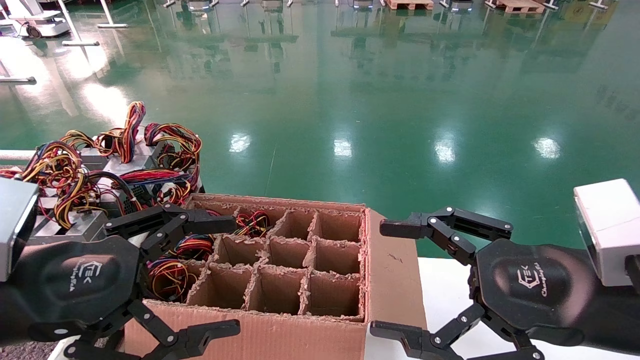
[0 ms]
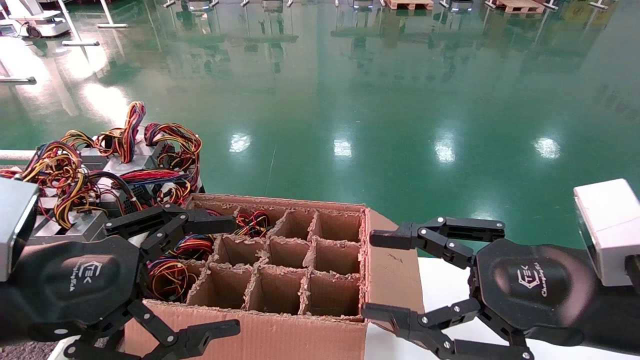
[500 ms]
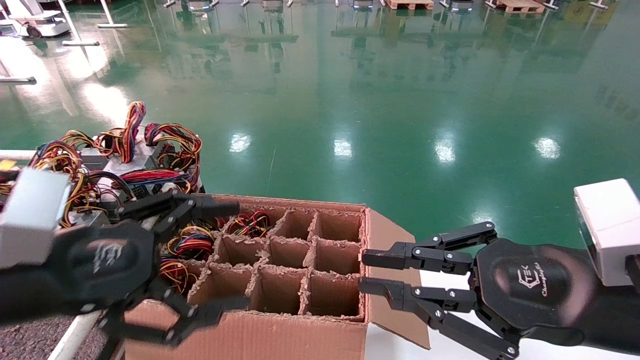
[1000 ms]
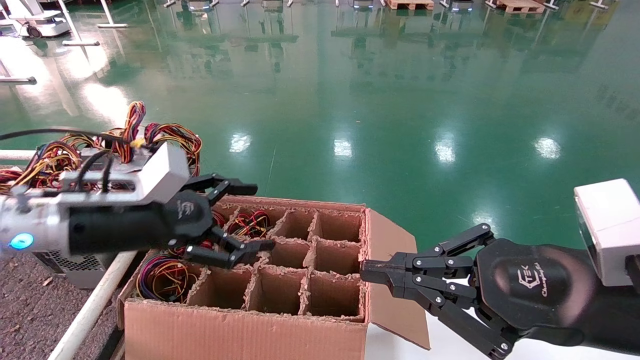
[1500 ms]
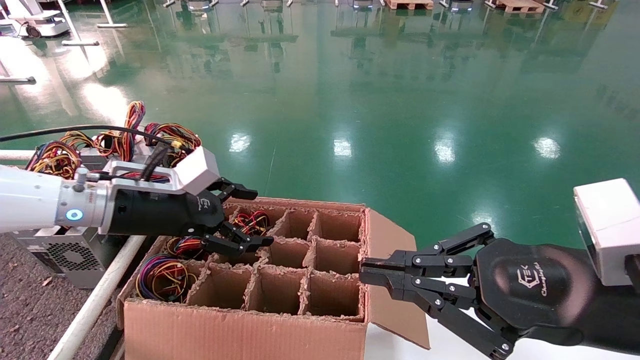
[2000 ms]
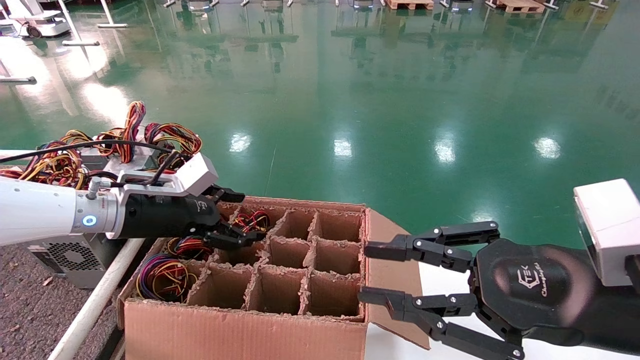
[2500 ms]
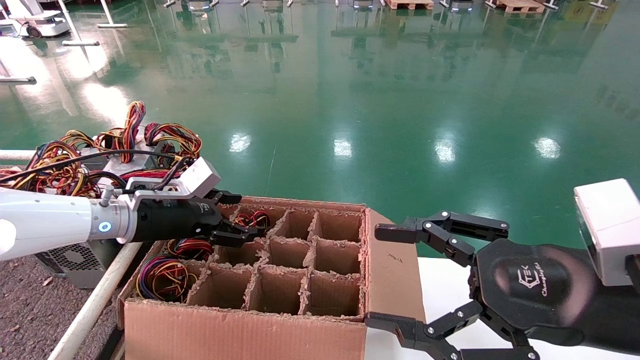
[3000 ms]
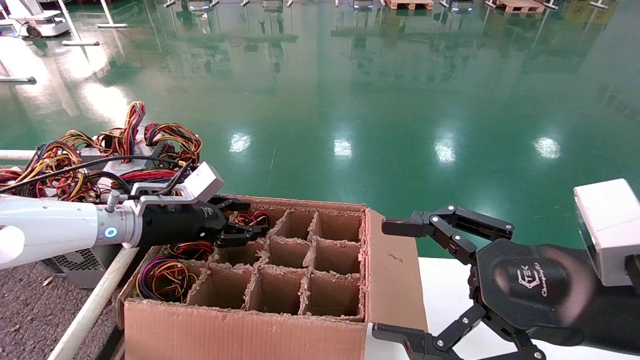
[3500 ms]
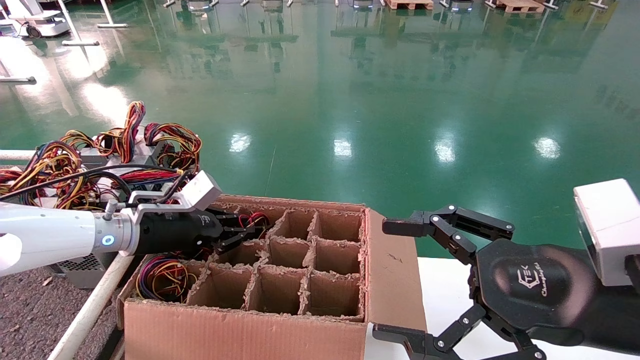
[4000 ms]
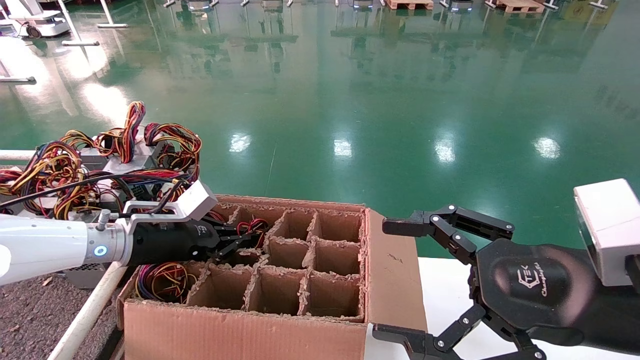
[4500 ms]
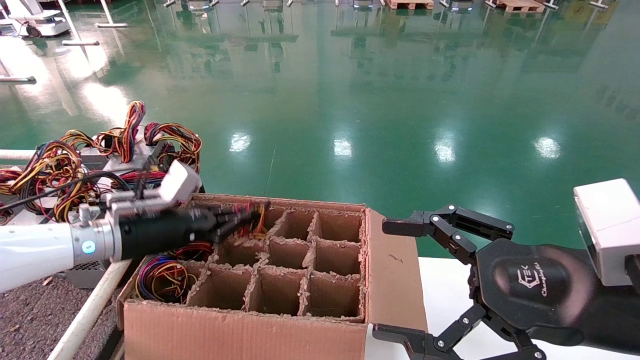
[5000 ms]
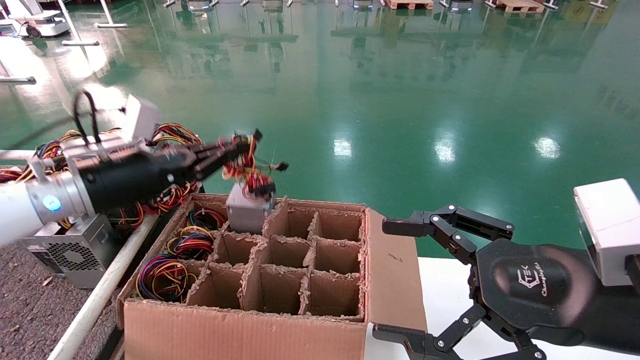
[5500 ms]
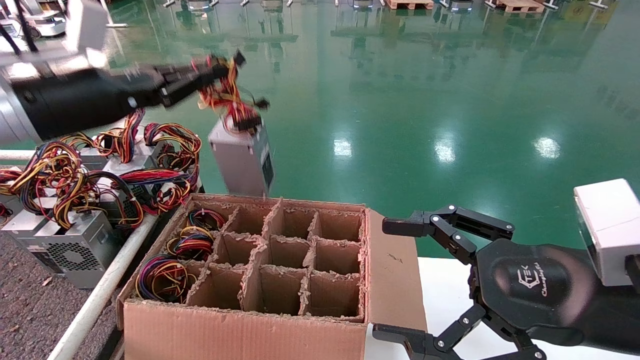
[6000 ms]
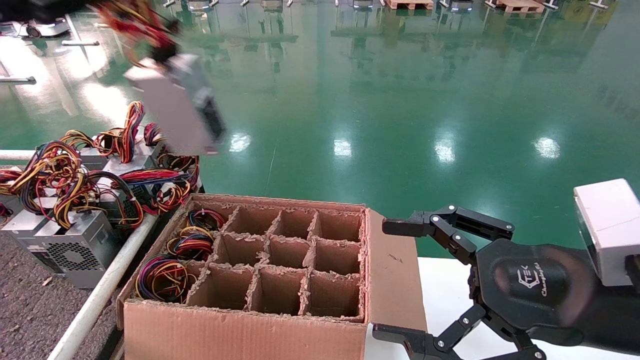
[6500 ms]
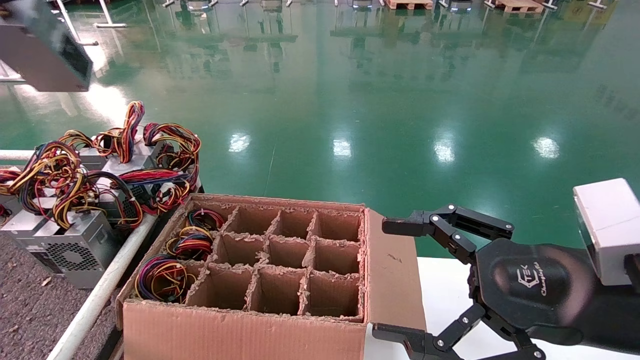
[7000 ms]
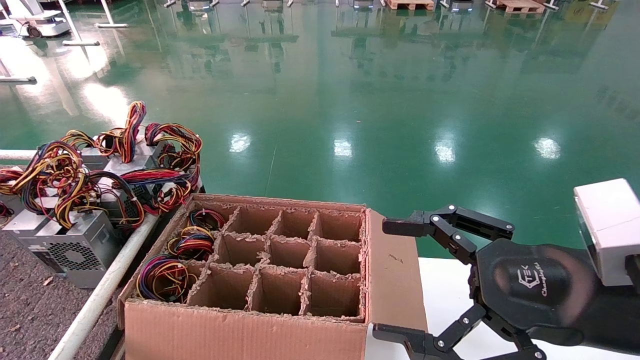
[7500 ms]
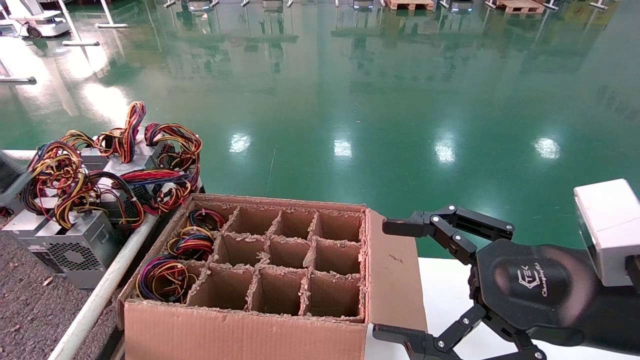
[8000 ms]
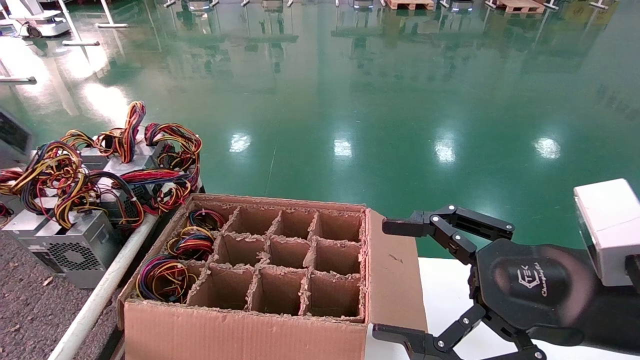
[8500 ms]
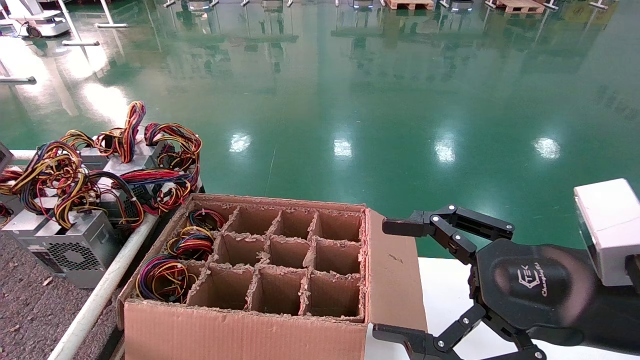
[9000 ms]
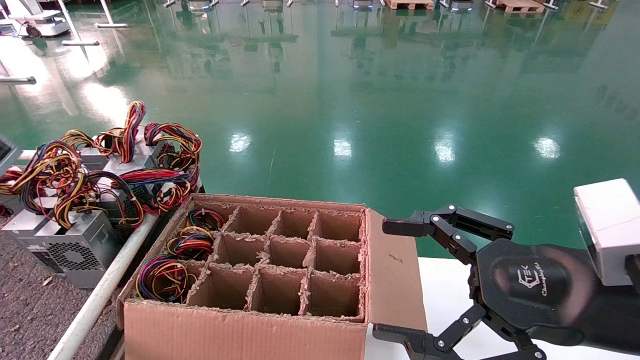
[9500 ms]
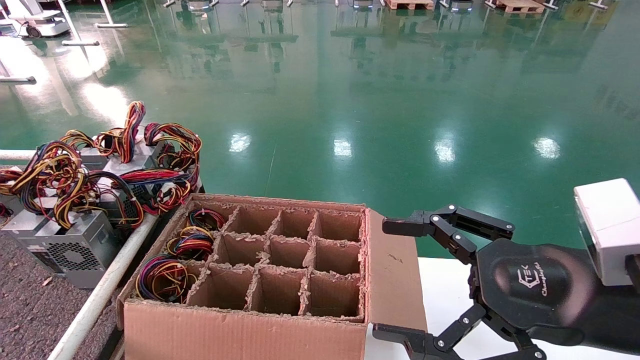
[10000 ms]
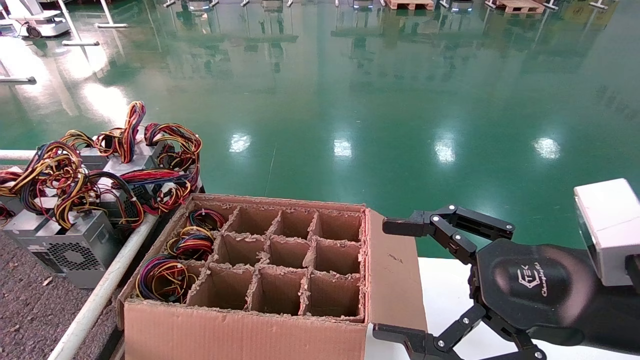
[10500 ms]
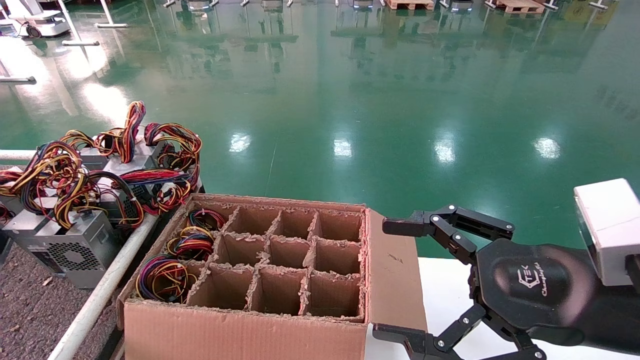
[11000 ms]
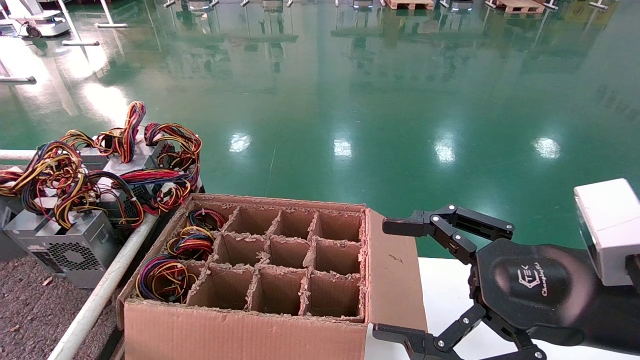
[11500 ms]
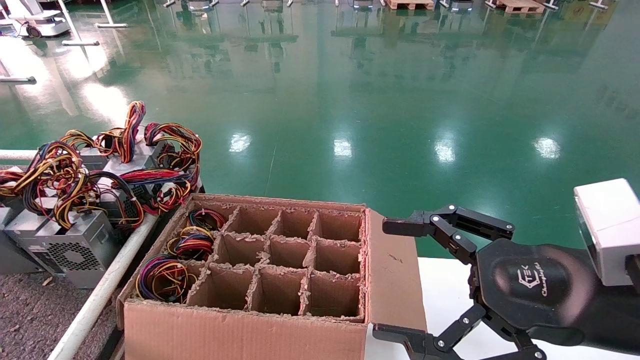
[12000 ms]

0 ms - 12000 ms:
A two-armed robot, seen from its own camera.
Step, 1500 ms - 4000 ms: Grab and lift the power supply from the large box.
0 ms - 2000 ms: The right gripper closes its fingers, while the left gripper moves forward, roughly 20 cm.
2000 ms - 4000 ms: The right gripper opens its fingers; the left gripper travels downward by some 5 cm, and closes.
4000 ms - 6000 ms: The left gripper moves upward, approximately 20 cm.
6000 ms - 8000 ms: The left gripper heads to the left and backward, covering some 35 cm.
10000 ms - 12000 ms: The left gripper goes roughly 15 cm downward and forward.

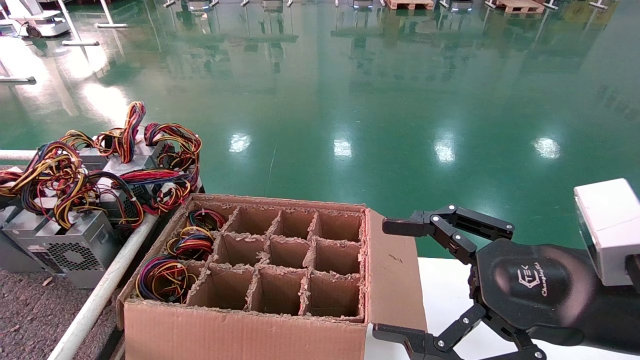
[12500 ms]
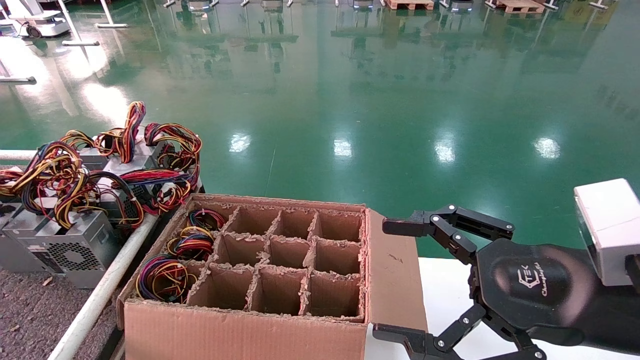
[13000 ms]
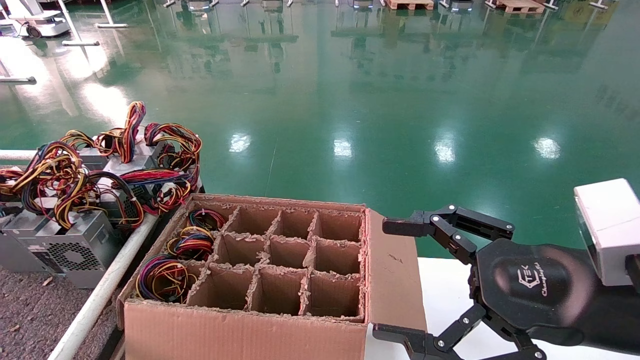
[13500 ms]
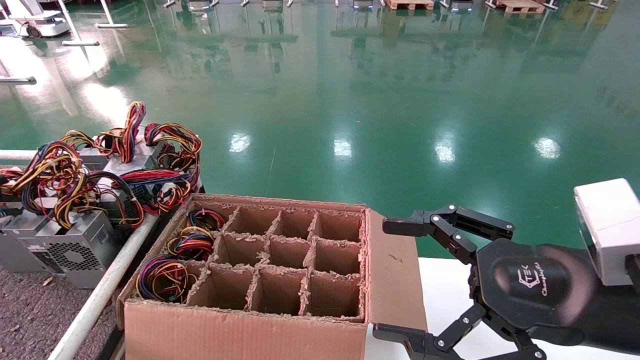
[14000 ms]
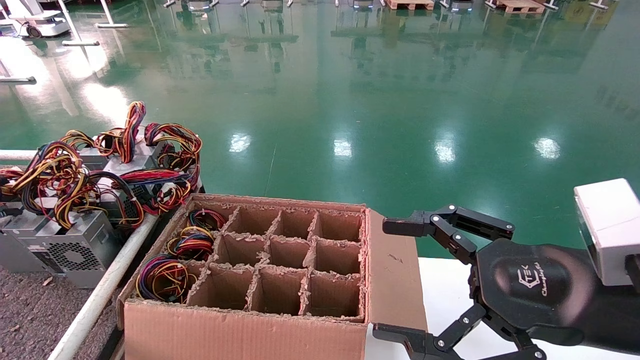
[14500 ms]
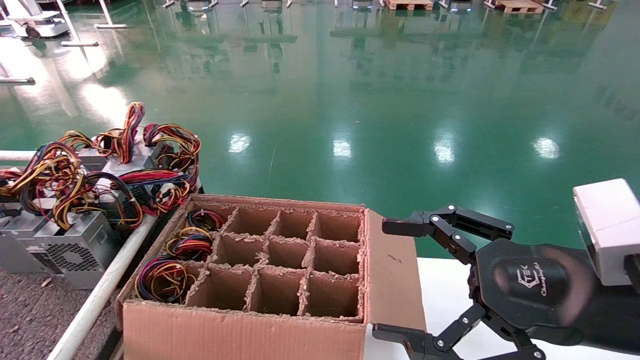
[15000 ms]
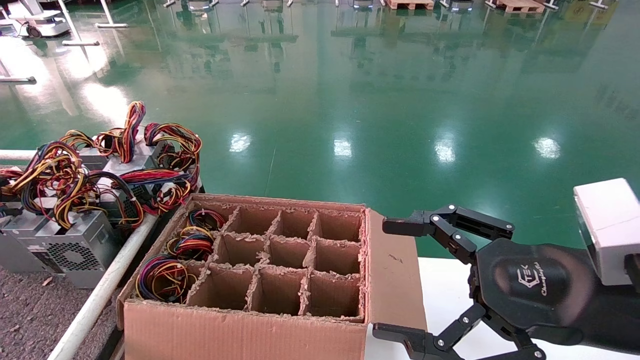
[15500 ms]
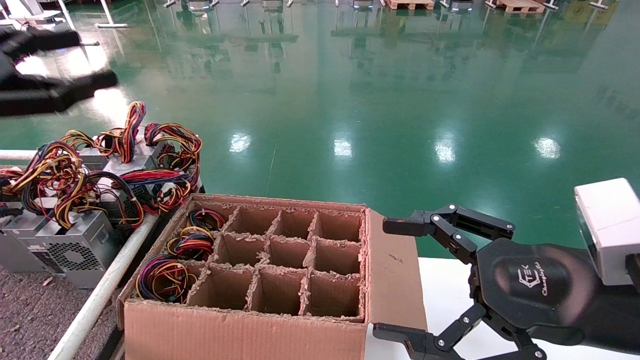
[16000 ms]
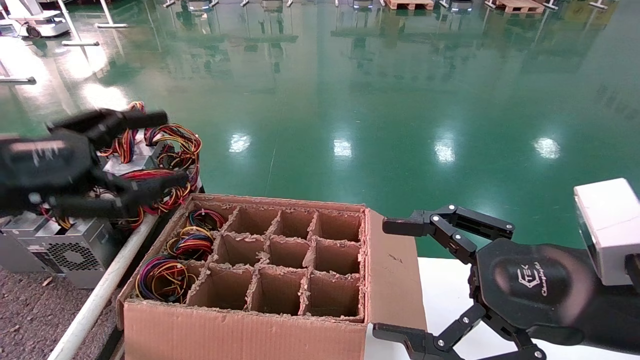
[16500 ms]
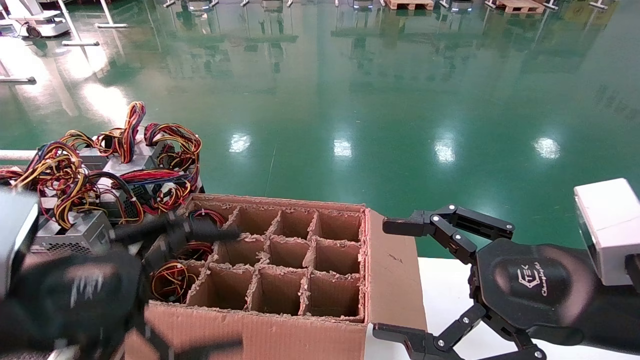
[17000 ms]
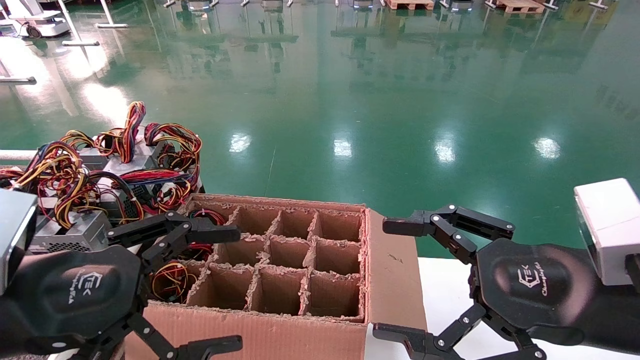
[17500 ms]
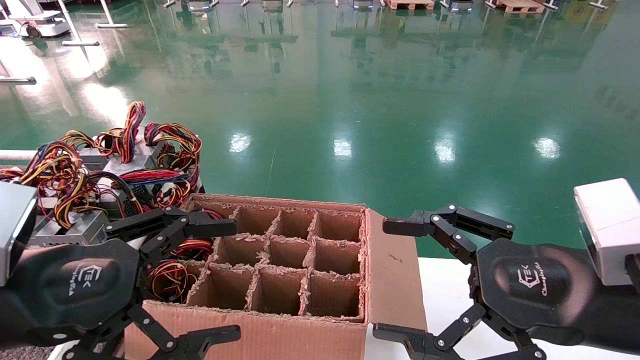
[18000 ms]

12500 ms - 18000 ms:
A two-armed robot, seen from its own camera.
14500 ms - 16000 ms: The left gripper travels to the right by roughly 20 cm.
16000 ms - 18000 ms: The left gripper shifts approximately 20 cm to the right, downward and backward.
